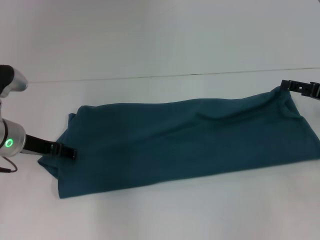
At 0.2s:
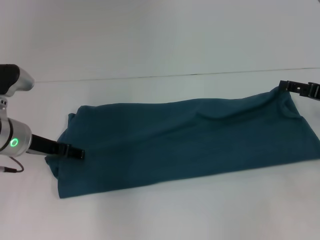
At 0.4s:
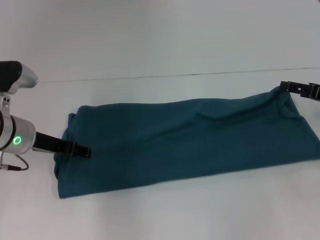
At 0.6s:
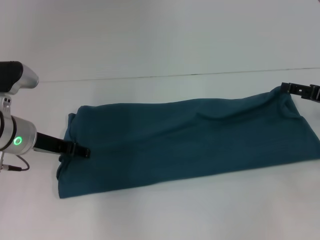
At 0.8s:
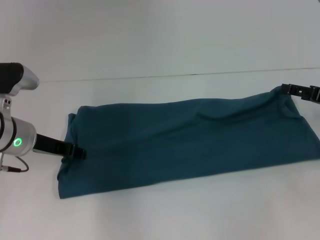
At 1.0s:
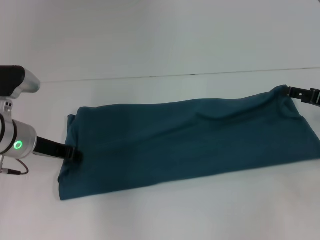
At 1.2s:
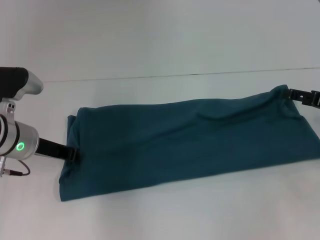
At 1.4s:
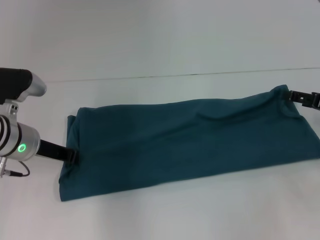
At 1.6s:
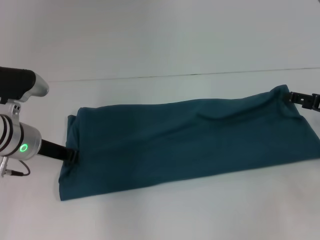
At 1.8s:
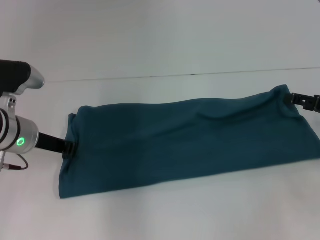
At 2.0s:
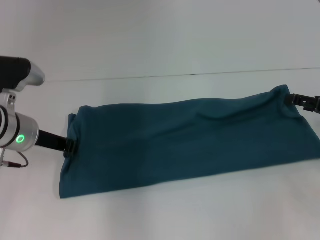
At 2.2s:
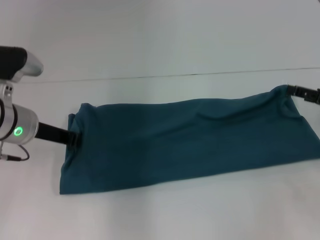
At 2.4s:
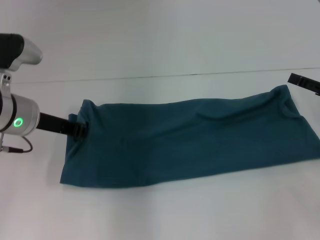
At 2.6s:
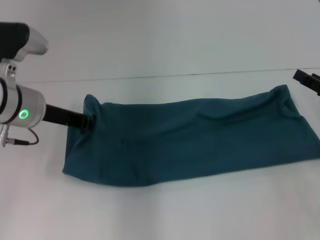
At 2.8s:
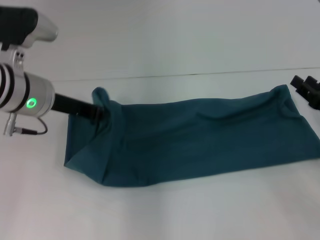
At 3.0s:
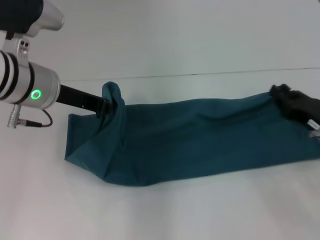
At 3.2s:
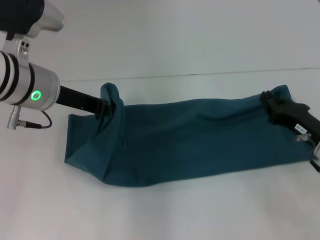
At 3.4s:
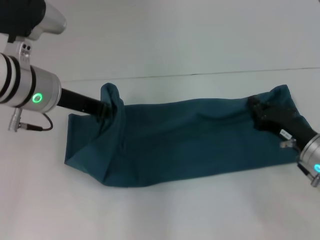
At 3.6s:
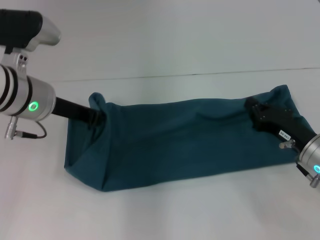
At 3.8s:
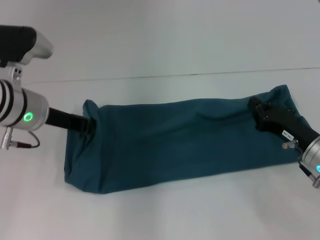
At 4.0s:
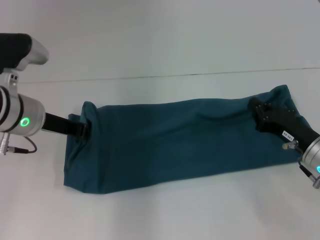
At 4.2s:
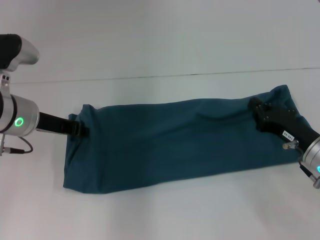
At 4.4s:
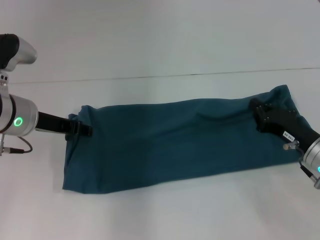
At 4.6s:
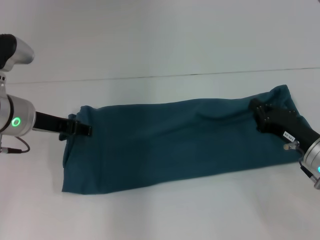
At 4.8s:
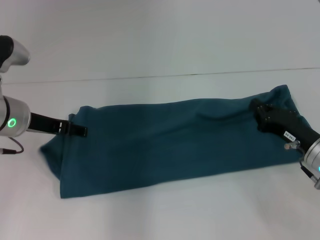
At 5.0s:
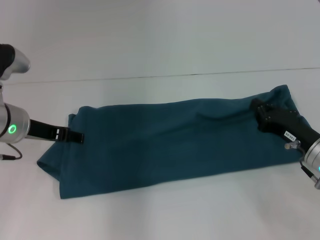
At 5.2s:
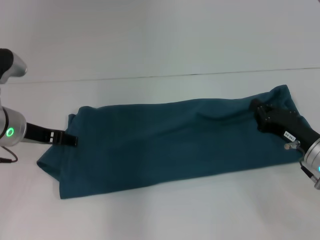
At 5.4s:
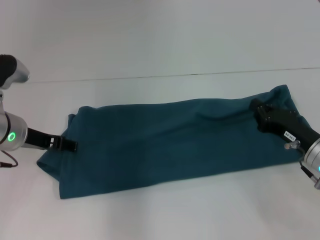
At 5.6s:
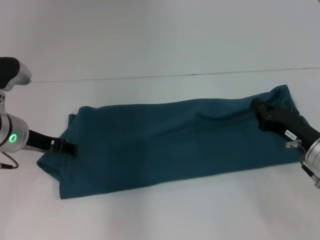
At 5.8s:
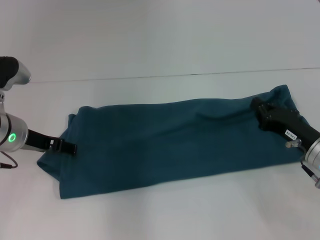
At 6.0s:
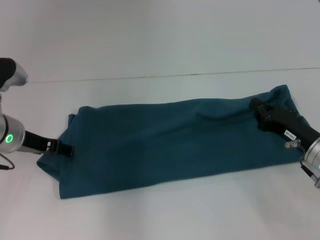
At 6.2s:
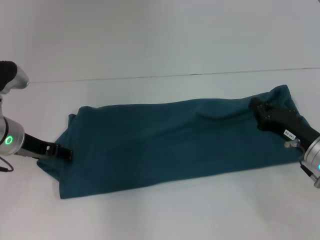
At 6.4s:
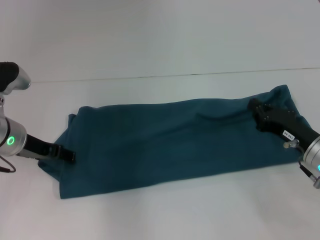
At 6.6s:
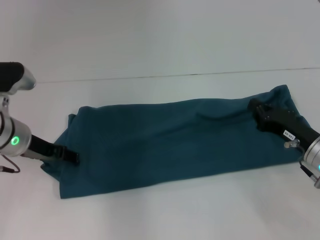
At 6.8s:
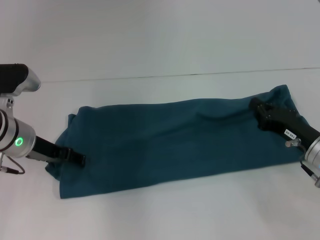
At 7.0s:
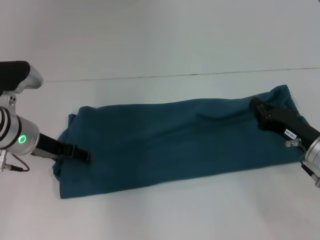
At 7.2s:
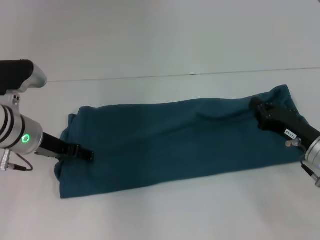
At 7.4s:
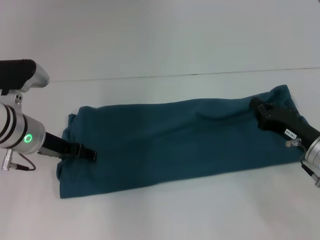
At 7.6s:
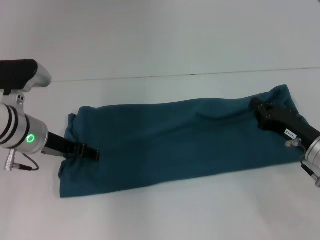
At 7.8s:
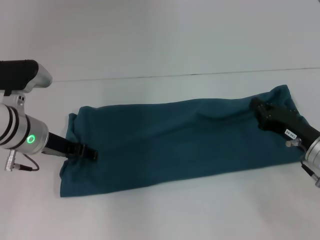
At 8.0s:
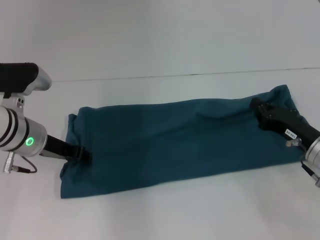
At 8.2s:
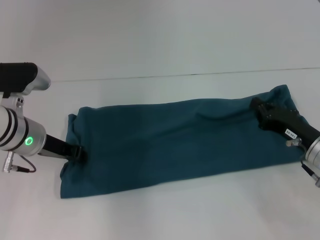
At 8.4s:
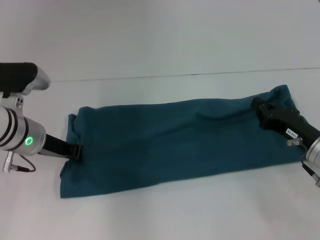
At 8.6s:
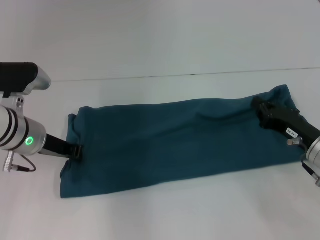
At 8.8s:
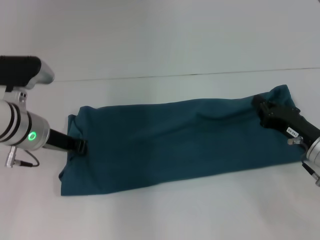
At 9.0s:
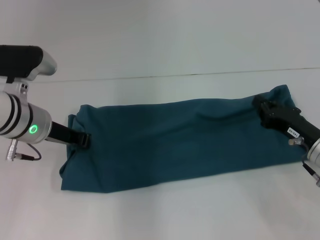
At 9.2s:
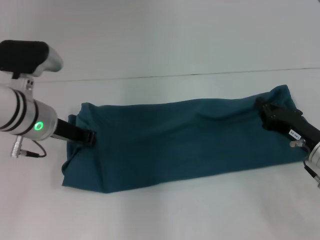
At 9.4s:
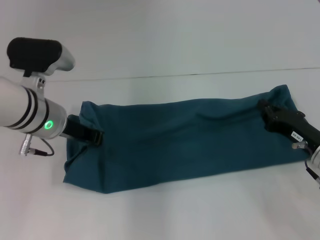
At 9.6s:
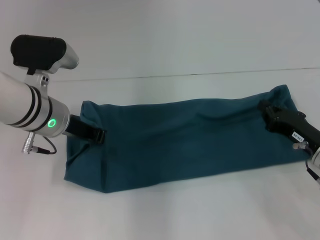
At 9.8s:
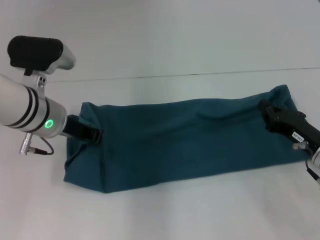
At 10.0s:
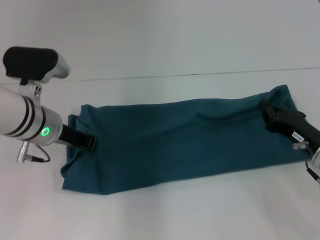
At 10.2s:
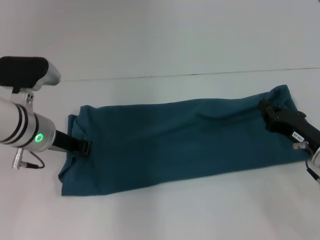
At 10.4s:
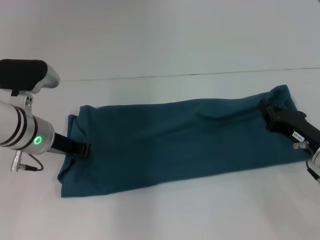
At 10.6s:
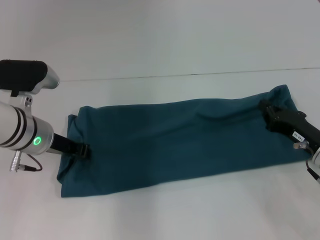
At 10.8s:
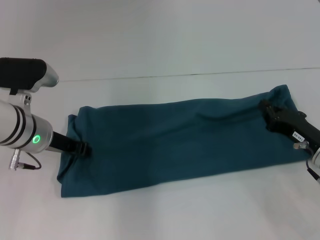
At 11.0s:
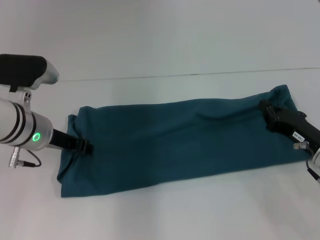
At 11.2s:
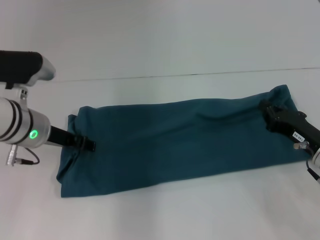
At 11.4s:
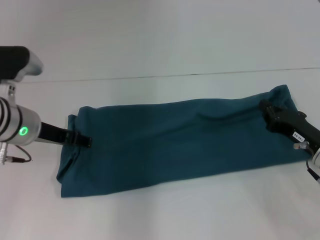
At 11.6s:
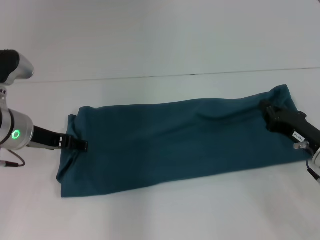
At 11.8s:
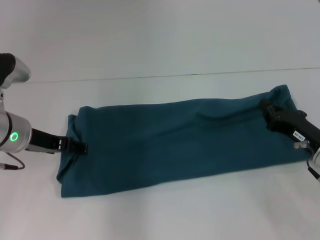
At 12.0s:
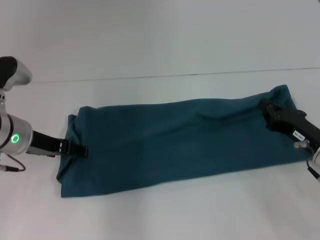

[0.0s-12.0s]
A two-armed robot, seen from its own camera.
0.0s to 1.6s: The left gripper closes.
1.6s to 3.0s: The left gripper goes approximately 10 cm upward; the right gripper goes some 10 cm downward and to the left, and closes up.
3.0s to 4.4s: The right gripper closes, while the left gripper moves downward, approximately 5 cm.
4.4s to 6.0s: The left gripper opens.
6.0s to 7.6s: The grippers move only a little.
7.6s to 9.0s: The left gripper closes its fingers.
9.0s to 10.4s: The grippers move only a little.
10.4s to 12.0s: The left gripper opens its fingers.

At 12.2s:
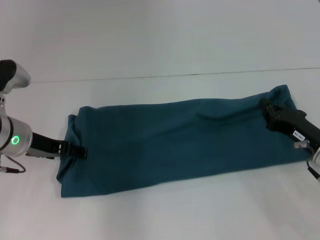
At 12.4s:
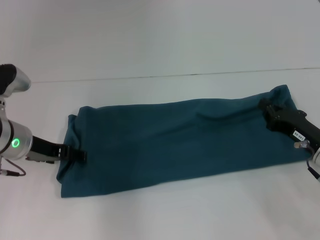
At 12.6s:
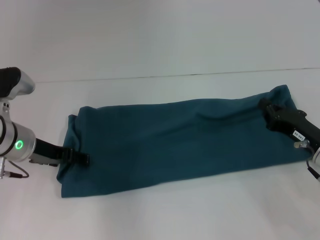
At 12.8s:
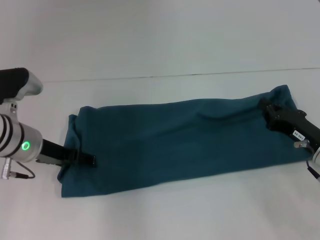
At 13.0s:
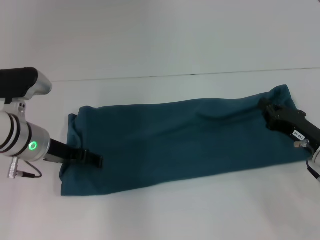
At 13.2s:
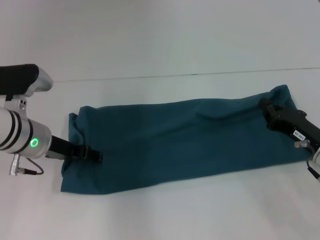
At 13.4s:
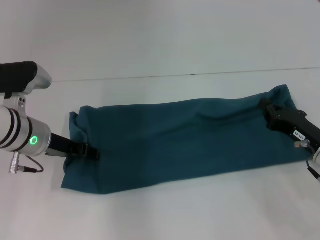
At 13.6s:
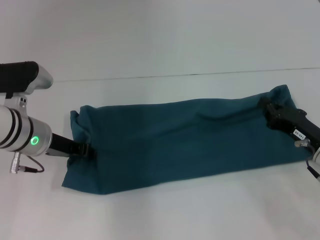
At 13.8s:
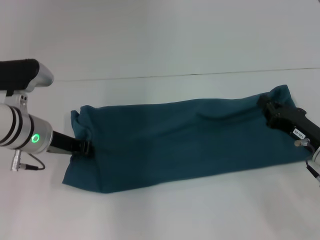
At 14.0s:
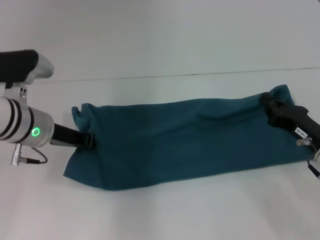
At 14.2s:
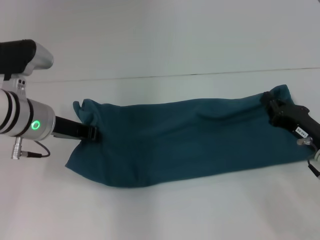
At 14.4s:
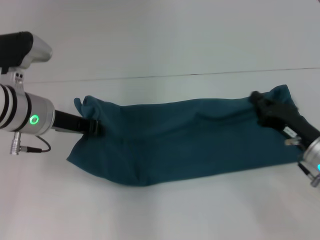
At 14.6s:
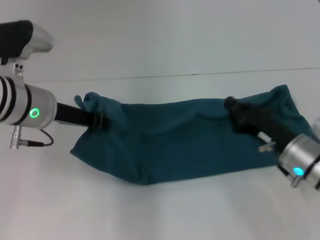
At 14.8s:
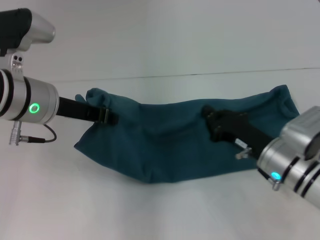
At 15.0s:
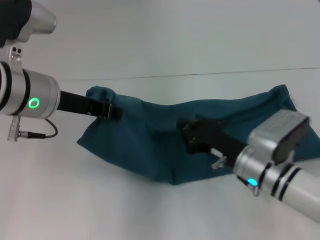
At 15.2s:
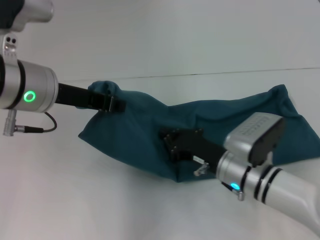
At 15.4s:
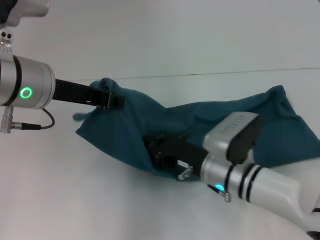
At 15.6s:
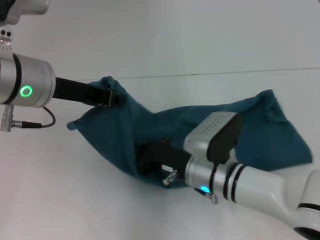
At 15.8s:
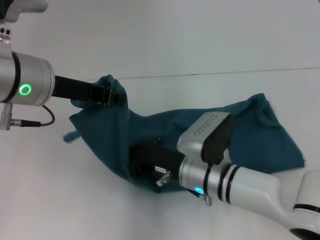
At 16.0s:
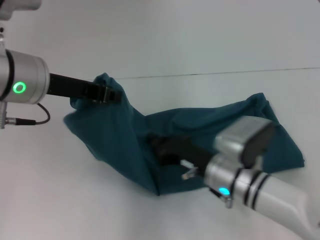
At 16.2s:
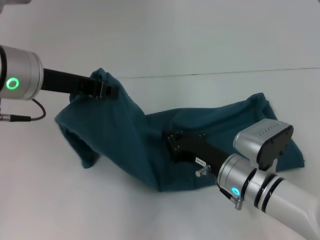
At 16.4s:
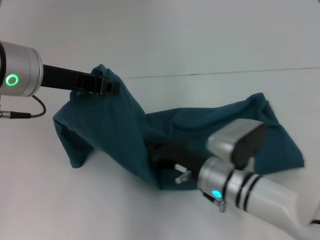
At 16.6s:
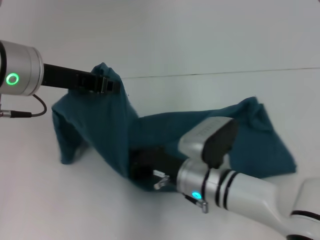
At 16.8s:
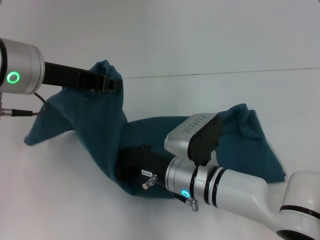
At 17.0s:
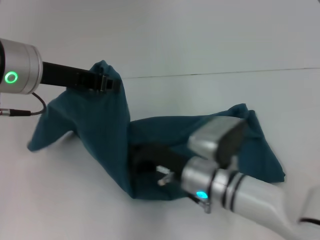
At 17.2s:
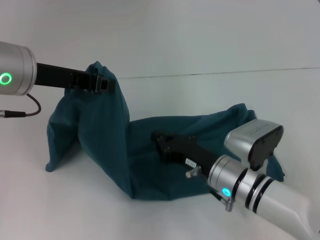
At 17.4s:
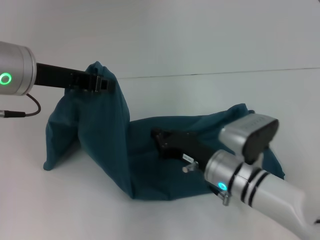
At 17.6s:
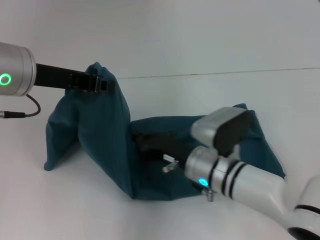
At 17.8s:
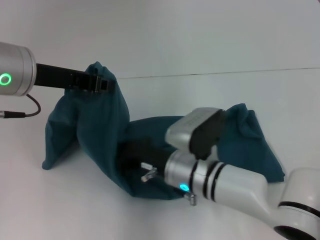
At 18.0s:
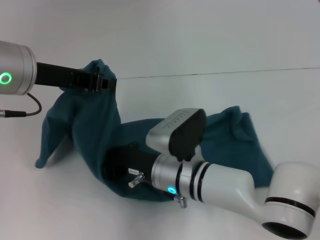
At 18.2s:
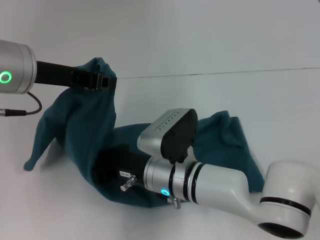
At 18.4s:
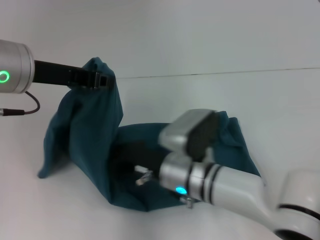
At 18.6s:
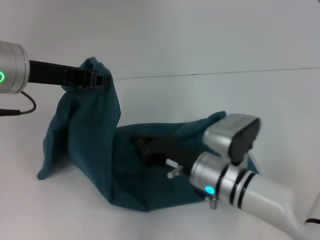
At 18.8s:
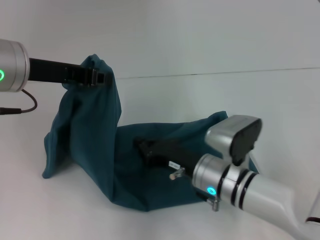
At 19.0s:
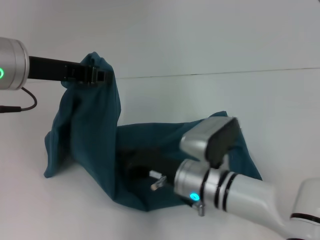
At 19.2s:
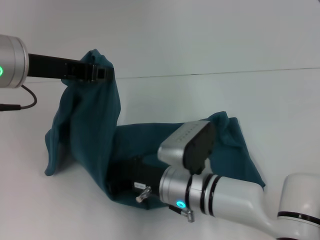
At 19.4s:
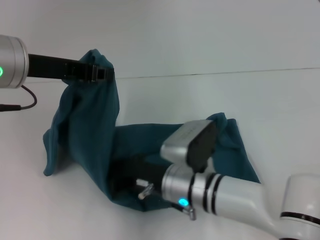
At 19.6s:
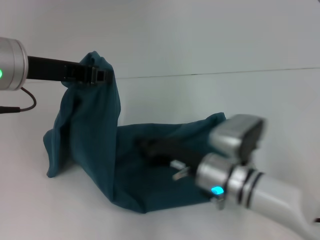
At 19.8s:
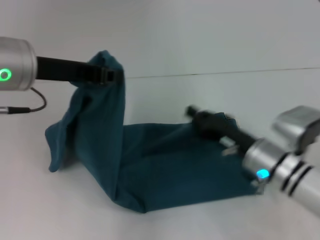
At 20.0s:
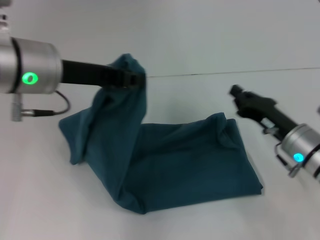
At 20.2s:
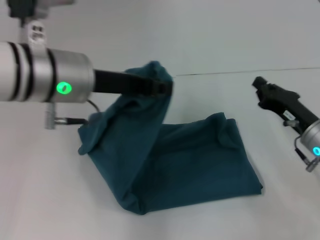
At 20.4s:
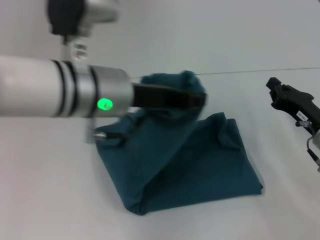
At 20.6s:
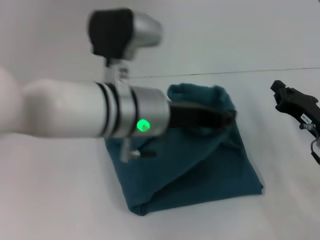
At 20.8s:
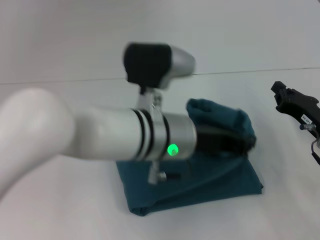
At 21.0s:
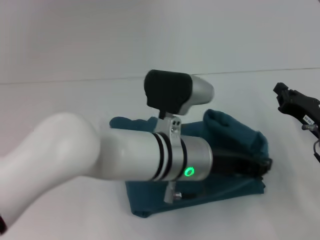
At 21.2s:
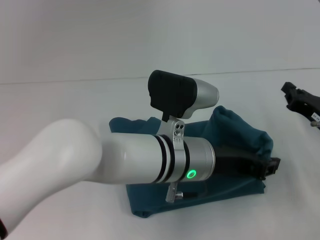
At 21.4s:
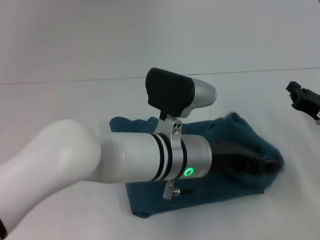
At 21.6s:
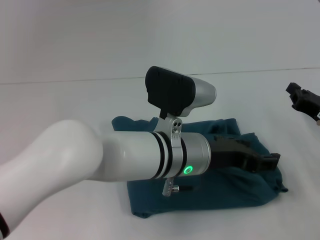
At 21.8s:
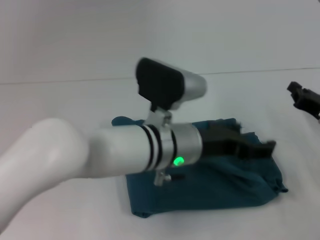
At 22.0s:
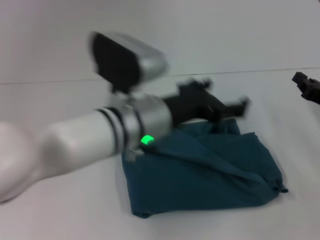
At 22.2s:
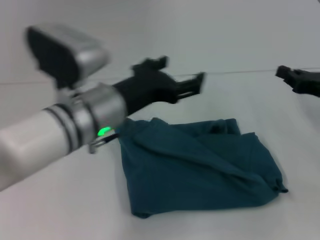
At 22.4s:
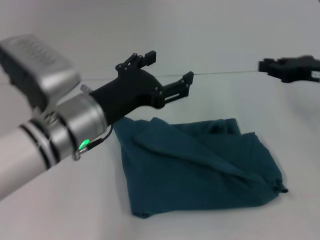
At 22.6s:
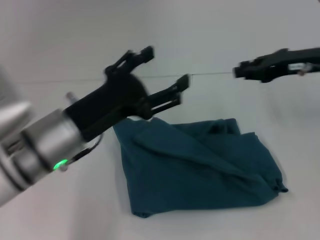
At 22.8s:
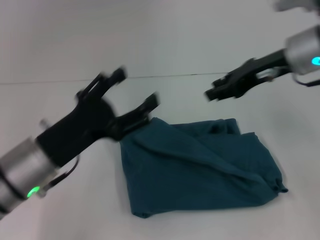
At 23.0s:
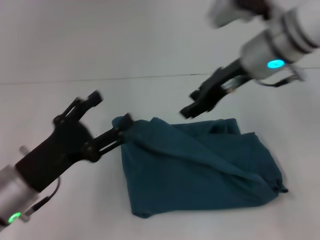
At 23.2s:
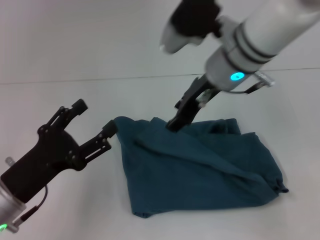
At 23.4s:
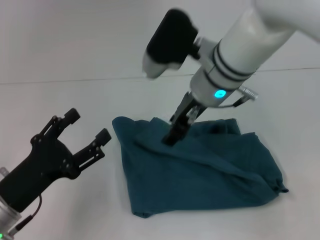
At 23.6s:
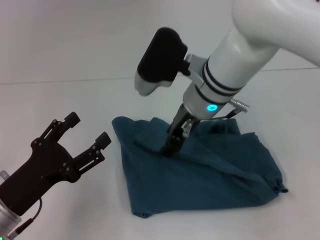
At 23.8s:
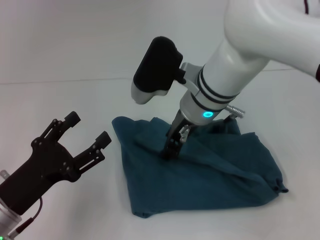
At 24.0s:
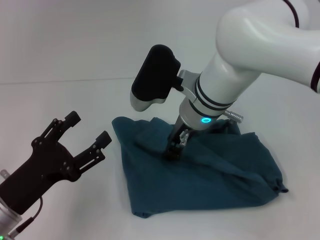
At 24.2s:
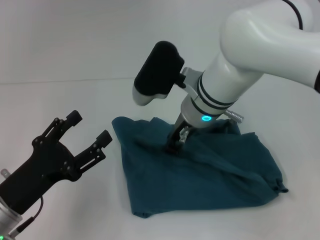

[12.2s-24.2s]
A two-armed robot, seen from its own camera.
Step, 12.2s to 19.4s: Press the middle of the clothes with your right hand.
Step, 19.6s to 21.8s: Fold the clothes to the left.
12.2s to 13.8s: The left gripper closes.
13.8s to 15.2s: The right gripper moves to the left, roughly 15 cm. The left gripper travels upward by some 10 cm.
15.2s to 16.6s: The right gripper goes left and right, about 5 cm each way, reversing 2 times.
16.6s to 18.2s: The right gripper moves some 5 cm.
18.2s to 19.8s: The right gripper moves left and right over some 15 cm, changing direction 2 times.
19.8s to 21.2s: The left gripper is displaced to the right and downward by some 25 cm. The right gripper is displaced to the right by roughly 15 cm.
21.2s to 22.6s: The right gripper heads upward and forward, covering about 15 cm; the left gripper heads to the left, covering roughly 15 cm, and opens its fingers.
22.6s to 24.2s: The left gripper moves to the left, downward and backward, approximately 15 cm, while the right gripper travels to the left by approximately 20 cm, and opens up.
